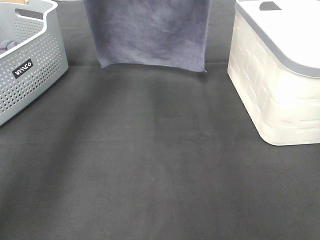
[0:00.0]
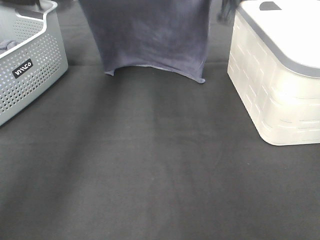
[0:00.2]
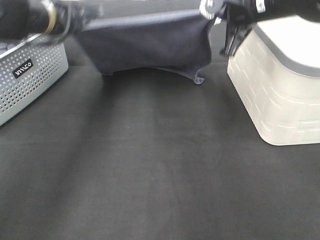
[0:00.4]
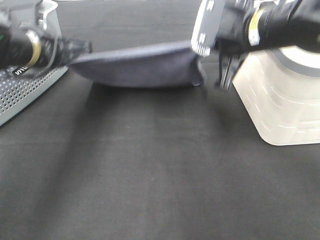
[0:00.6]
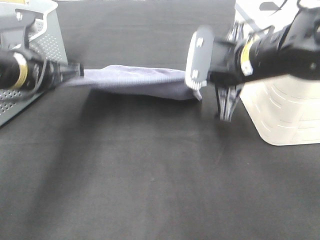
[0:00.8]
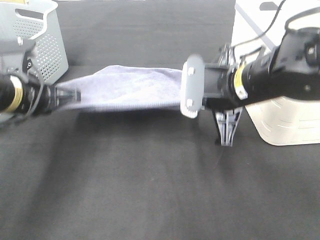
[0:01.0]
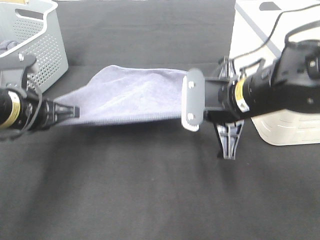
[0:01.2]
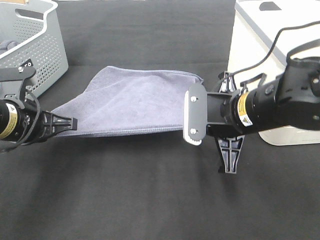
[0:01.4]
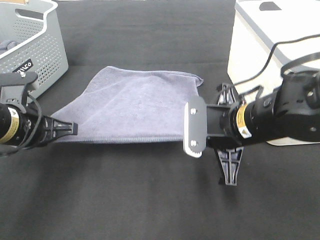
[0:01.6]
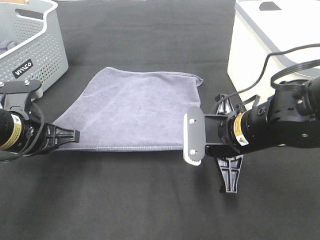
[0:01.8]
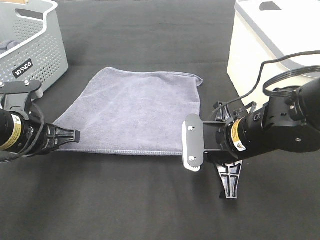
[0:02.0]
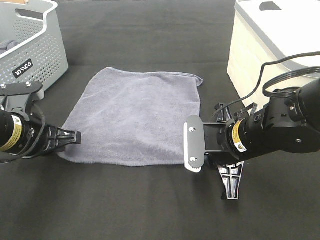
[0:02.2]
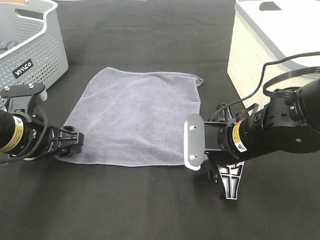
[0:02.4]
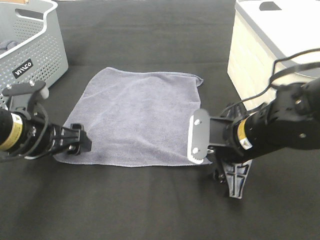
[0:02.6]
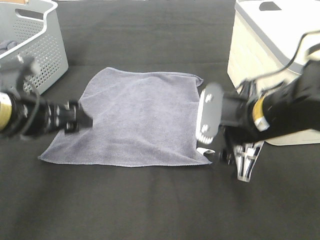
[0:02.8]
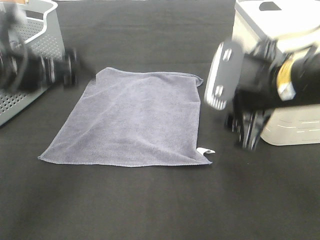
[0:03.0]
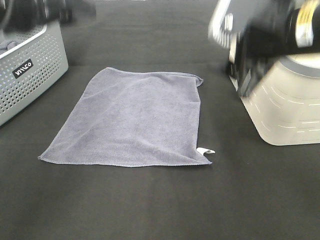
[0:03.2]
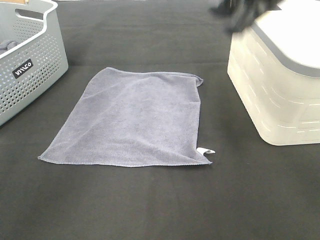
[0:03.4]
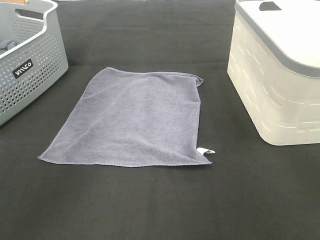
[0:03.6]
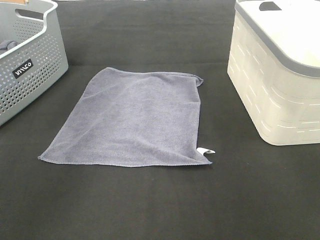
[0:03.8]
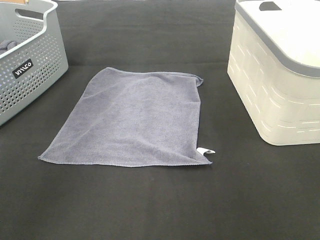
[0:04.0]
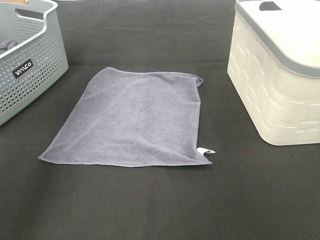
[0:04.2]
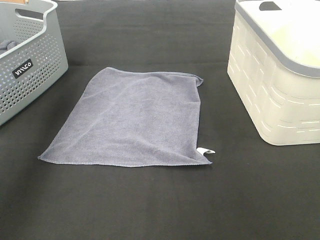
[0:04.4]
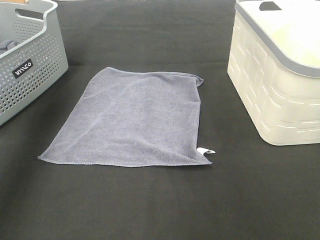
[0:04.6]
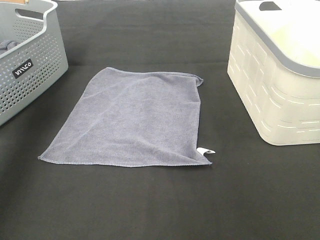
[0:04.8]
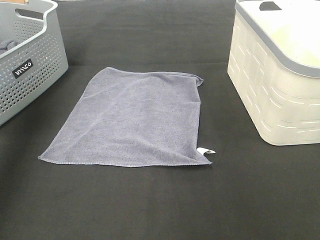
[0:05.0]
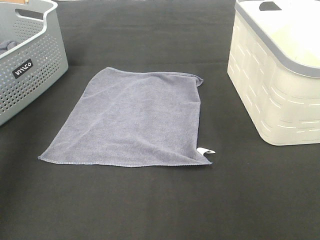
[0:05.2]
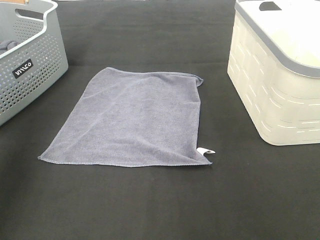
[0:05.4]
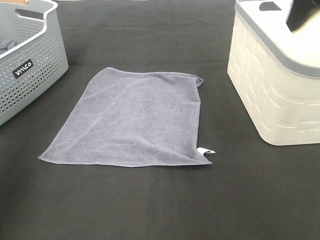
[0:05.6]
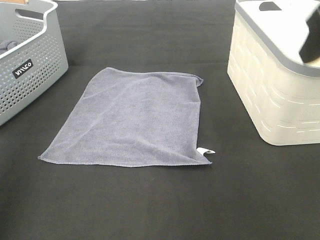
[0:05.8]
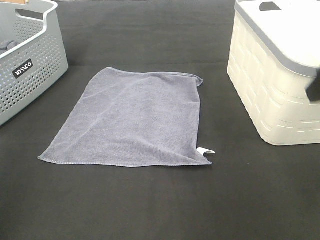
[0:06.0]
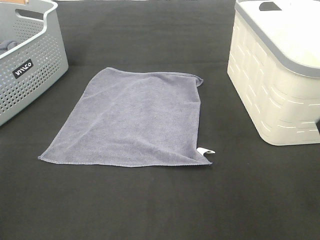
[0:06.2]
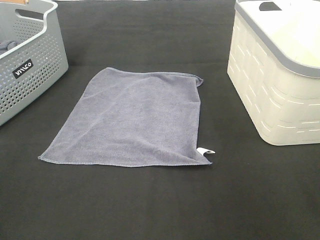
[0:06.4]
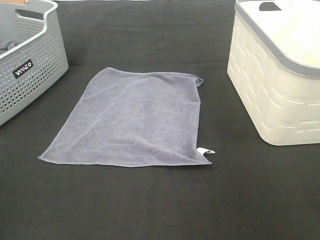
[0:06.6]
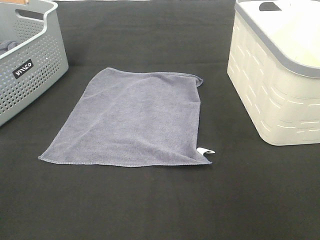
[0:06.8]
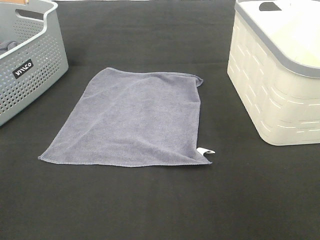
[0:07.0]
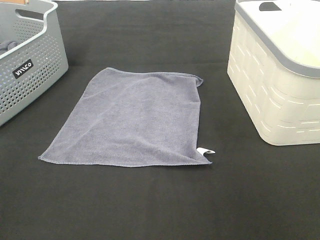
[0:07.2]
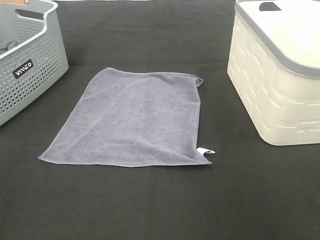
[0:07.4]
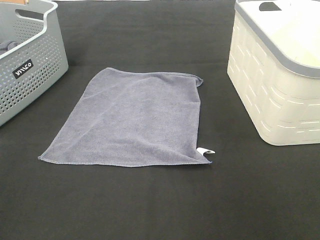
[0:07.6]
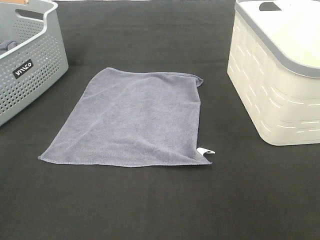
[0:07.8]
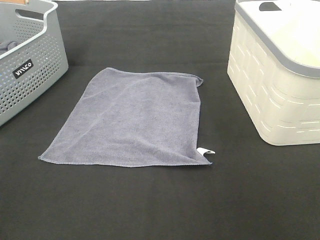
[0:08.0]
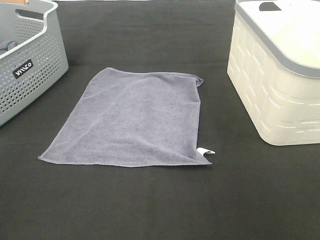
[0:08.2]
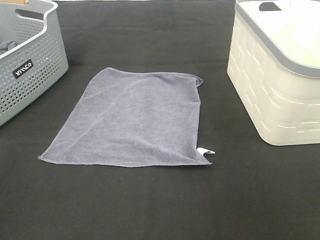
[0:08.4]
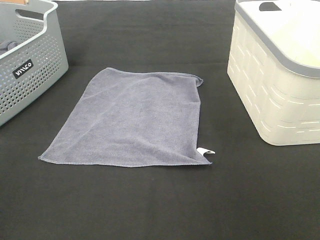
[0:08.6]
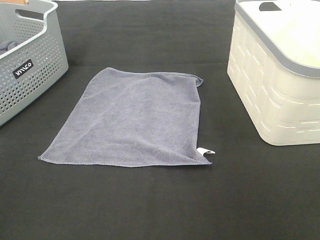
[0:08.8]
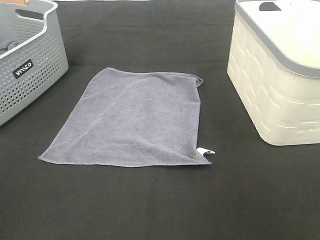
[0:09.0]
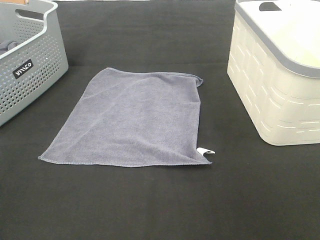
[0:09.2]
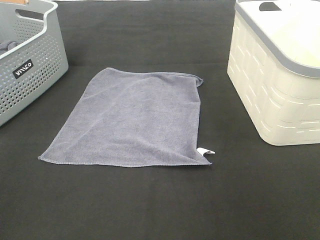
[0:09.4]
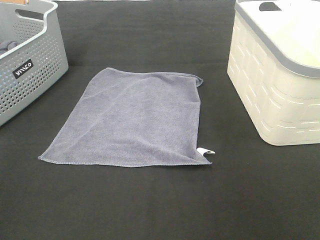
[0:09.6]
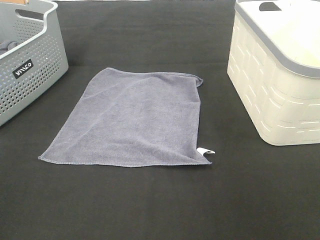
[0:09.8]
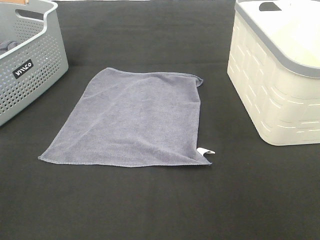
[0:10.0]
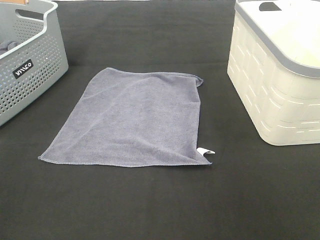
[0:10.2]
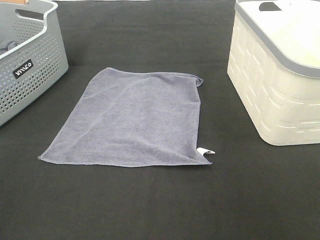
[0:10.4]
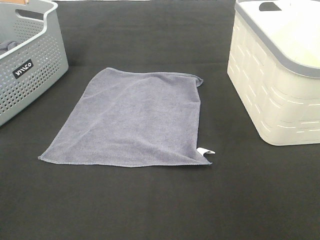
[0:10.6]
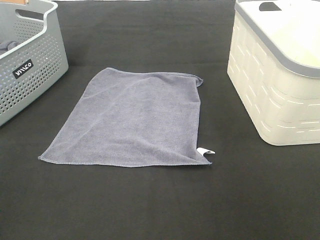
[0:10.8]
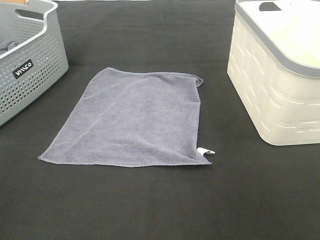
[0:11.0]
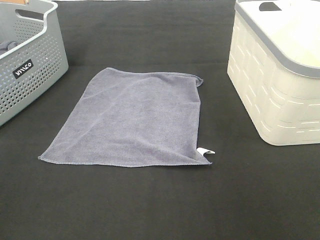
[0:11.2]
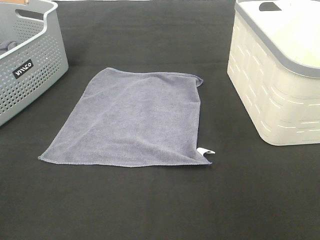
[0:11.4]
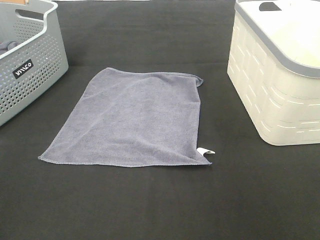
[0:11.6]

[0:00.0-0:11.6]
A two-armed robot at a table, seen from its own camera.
Task of the whole recording: Remove the towel and place it.
0:00.0 to 0:01.4: Both grippers move backward and downward, about 25 cm.
0:01.4 to 0:02.8: The left gripper opens. Meanwhile the right gripper opens.
0:02.8 to 0:04.4: The two grippers go approximately 30 cm upward and forward.
0:04.4 to 0:05.8: The left gripper goes about 25 cm backward, while the right gripper goes roughly 20 cm backward and downward.
0:05.8 to 0:07.2: The right gripper shifts roughly 15 cm backward.
0:10.2 to 0:11.6: Both grippers stay put.

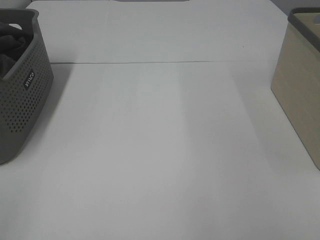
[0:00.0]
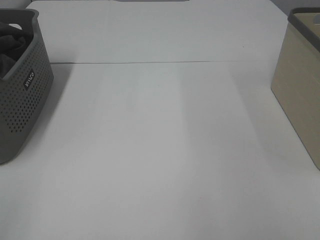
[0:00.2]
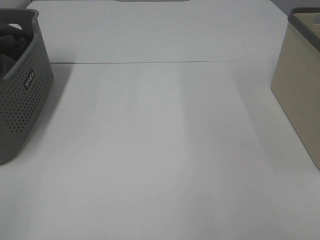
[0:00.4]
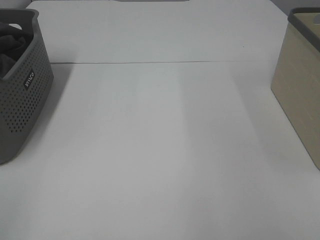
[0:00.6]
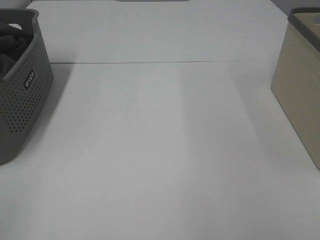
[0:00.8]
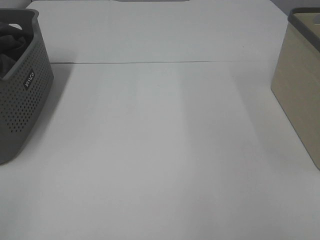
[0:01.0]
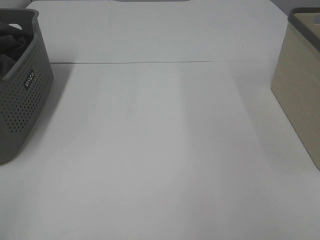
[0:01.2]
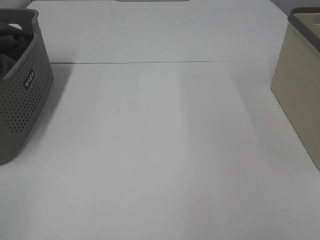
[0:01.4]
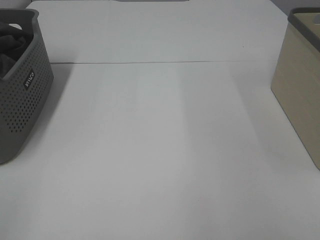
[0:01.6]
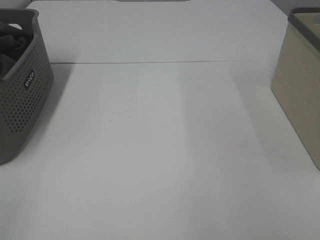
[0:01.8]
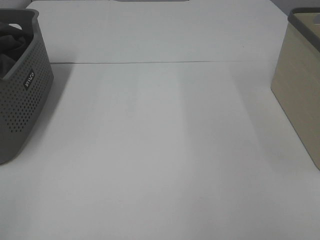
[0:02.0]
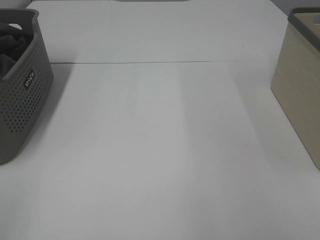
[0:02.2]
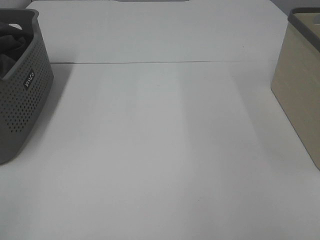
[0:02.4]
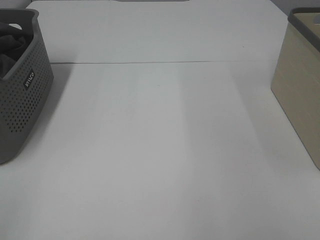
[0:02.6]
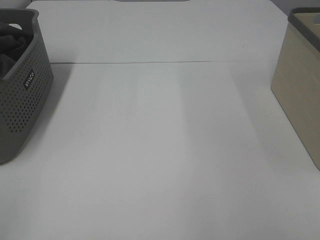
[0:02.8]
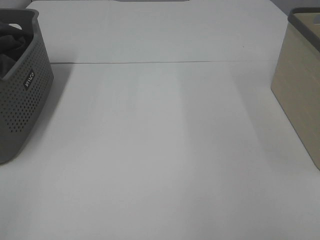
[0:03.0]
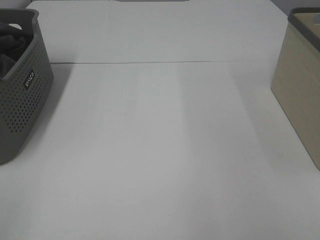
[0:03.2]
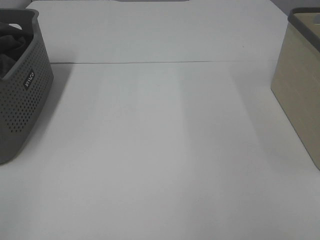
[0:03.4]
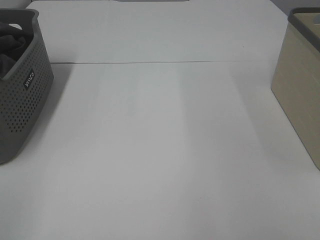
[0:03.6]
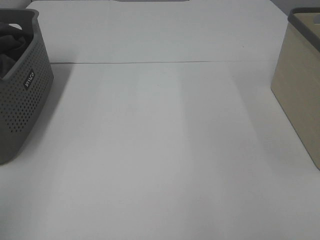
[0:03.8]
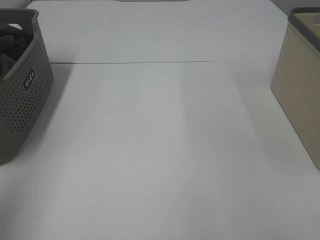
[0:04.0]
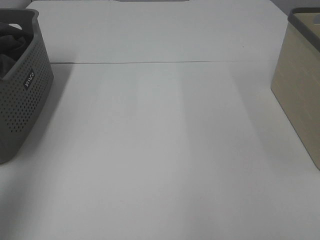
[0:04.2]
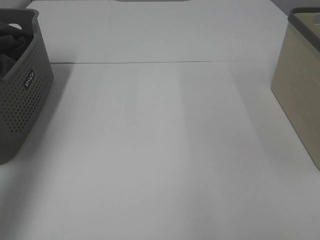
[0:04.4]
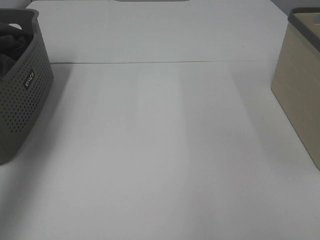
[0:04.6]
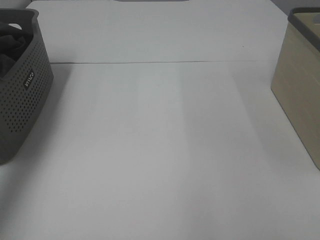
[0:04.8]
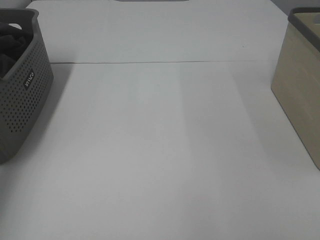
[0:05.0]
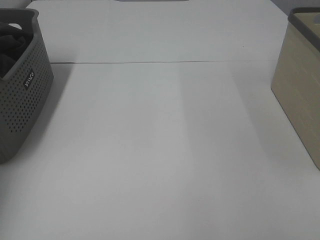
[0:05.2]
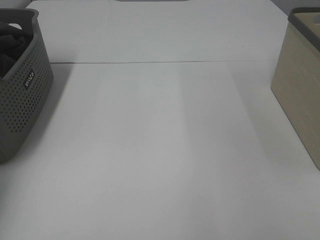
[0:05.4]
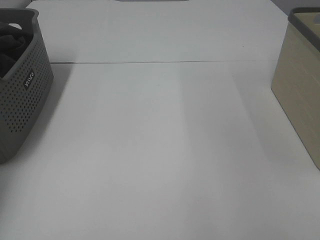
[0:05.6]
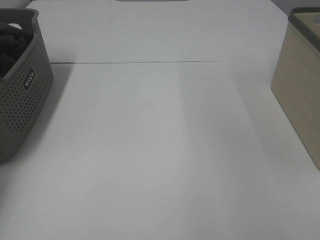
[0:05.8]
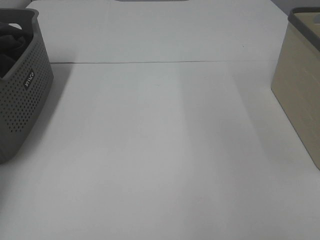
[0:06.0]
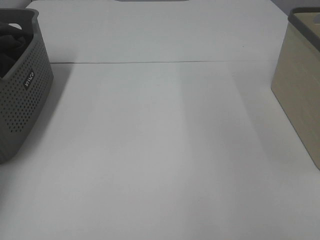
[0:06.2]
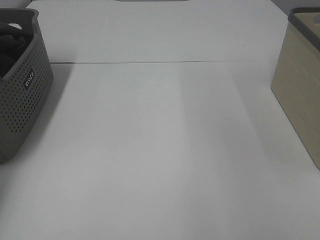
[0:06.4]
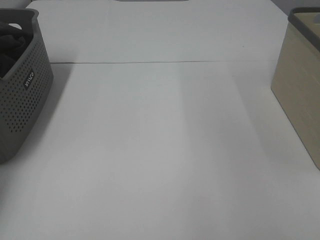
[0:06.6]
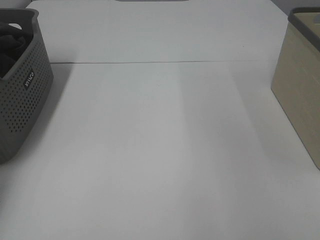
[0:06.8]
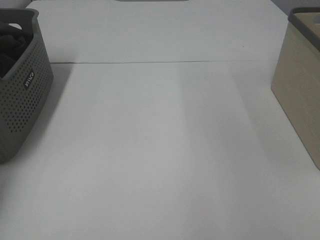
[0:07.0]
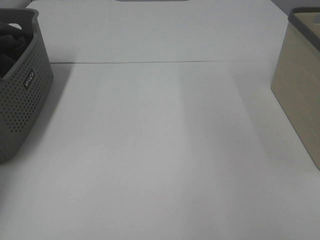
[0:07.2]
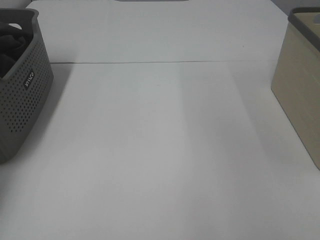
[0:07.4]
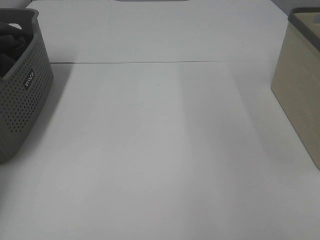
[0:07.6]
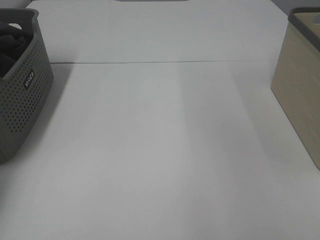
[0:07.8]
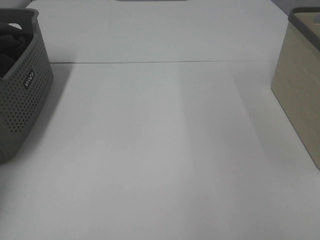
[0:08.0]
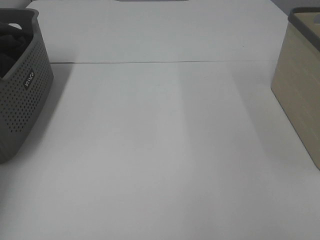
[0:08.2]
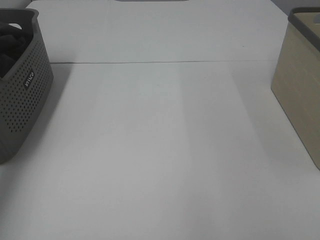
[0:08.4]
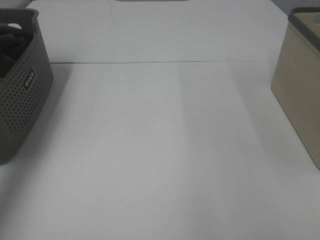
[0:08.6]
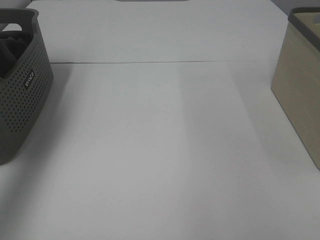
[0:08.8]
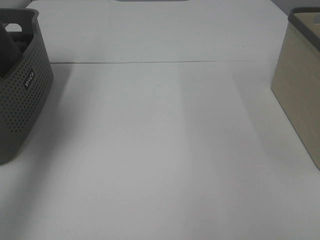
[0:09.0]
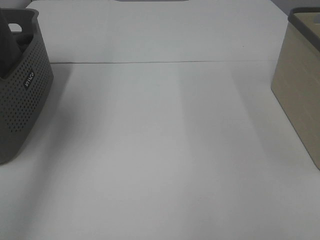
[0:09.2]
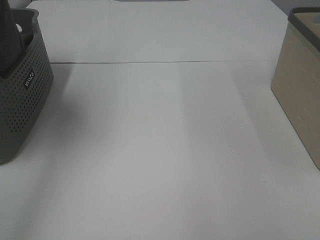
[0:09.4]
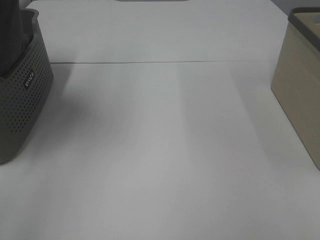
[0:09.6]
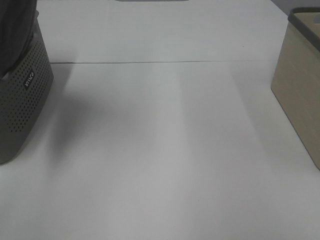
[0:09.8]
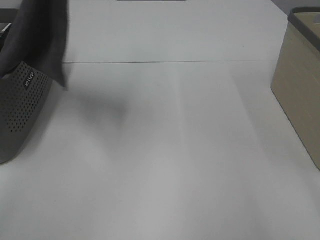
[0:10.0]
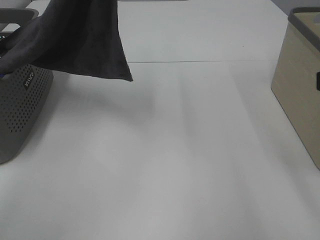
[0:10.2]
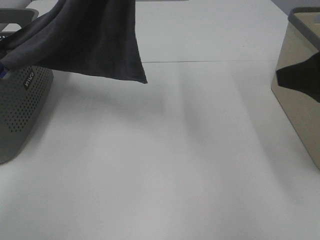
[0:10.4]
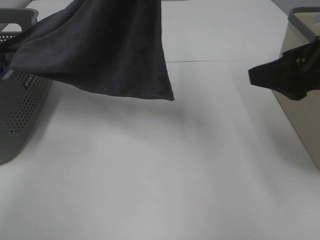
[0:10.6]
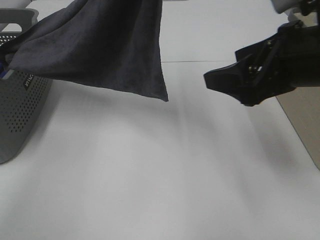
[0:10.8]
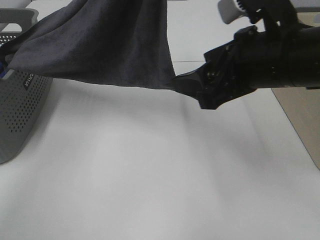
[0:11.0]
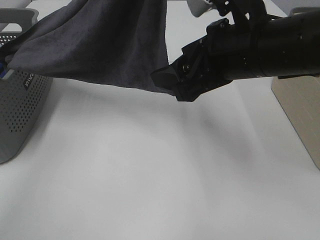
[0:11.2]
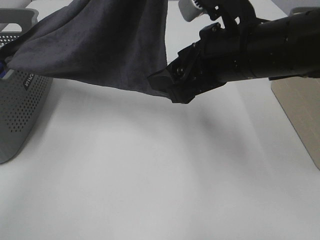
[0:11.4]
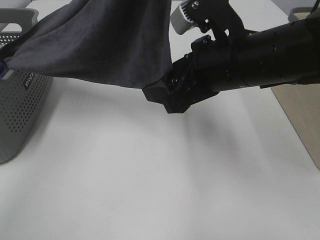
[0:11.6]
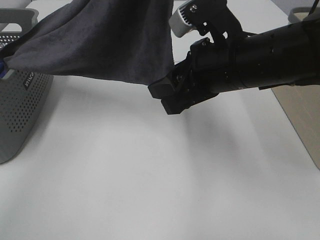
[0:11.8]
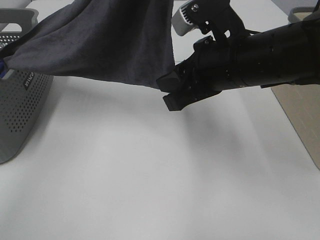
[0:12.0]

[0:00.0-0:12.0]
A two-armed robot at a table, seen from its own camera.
Task of the whole recording: Remove the towel and place it.
0:00.0 to 0:03.0: Both grippers stay about where they are.
0:03.0 to 0:04.4: The left gripper travels forward and upward by about 25 cm.
0:04.4 to 0:06.0: The left gripper is displaced forward and downward by approximately 30 cm.
0:07.6 to 0:09.0: The left gripper travels upward, backward and to the right by approximately 35 cm.
0:09.0 to 0:10.4: The left gripper shifts about 20 cm to the right. Meanwhile the right gripper is displaced forward by some 20 cm.
0:10.4 to 0:12.0: The right gripper shifts about 15 cm to the left, forward and downward, and closes.
